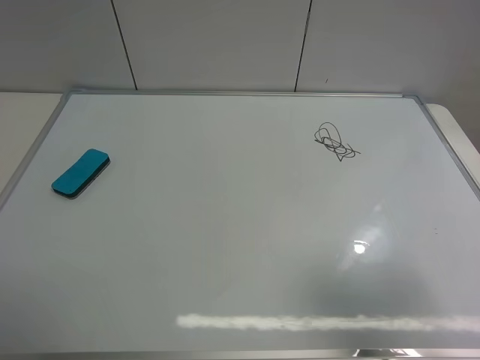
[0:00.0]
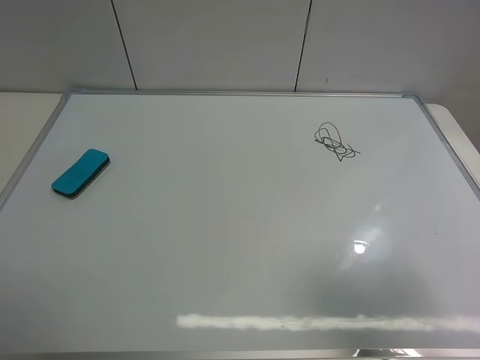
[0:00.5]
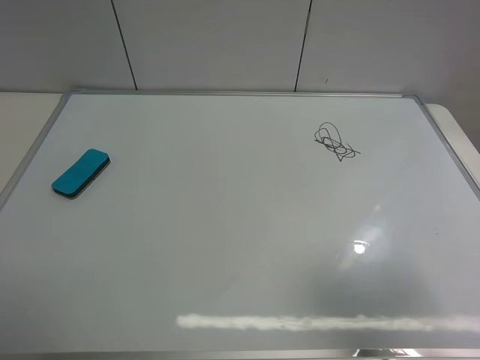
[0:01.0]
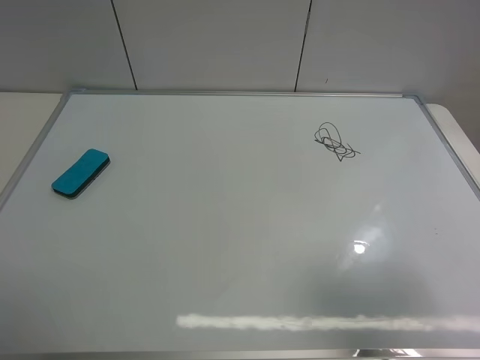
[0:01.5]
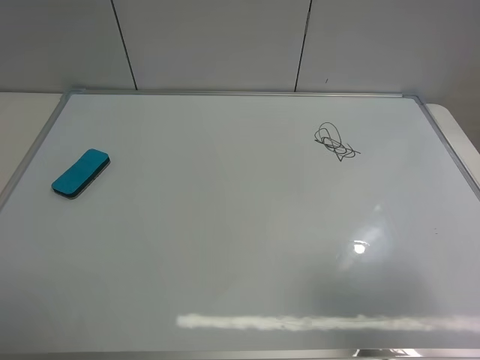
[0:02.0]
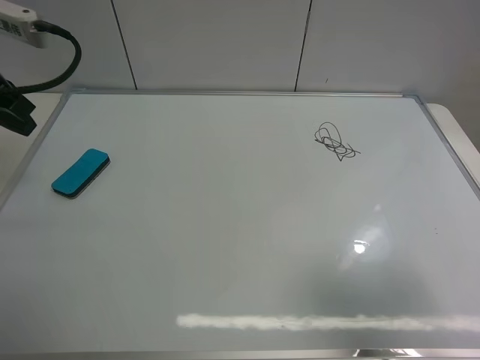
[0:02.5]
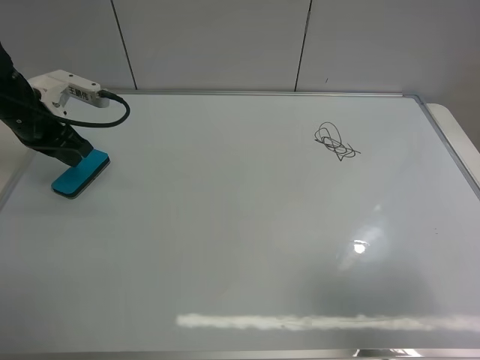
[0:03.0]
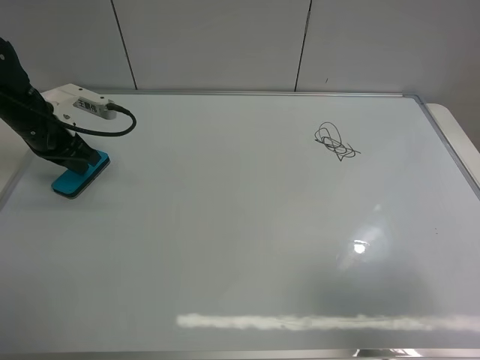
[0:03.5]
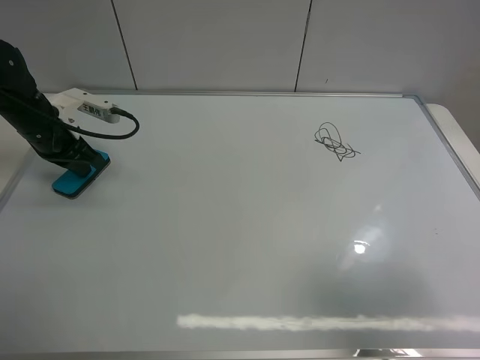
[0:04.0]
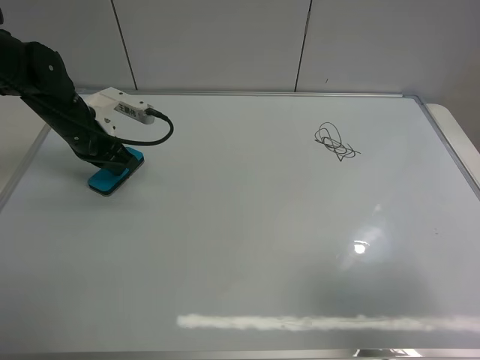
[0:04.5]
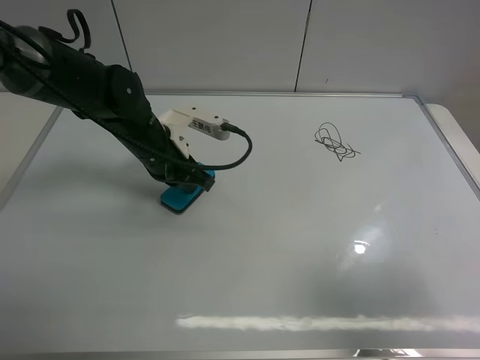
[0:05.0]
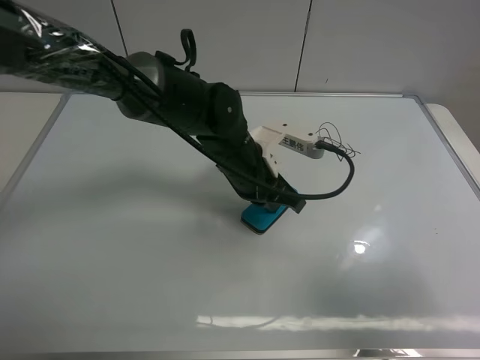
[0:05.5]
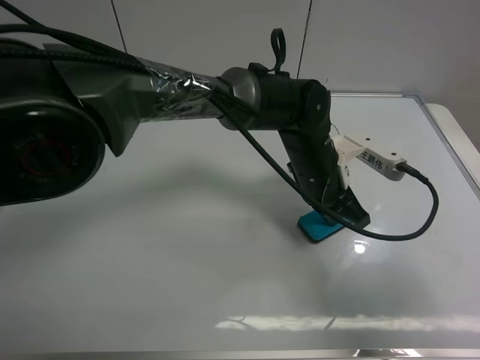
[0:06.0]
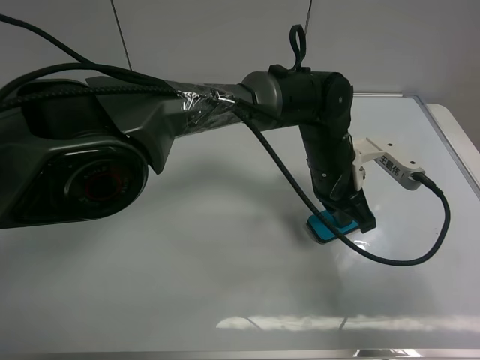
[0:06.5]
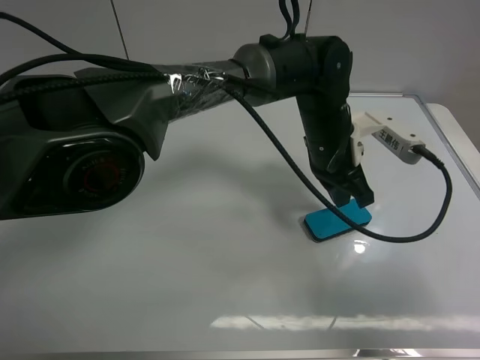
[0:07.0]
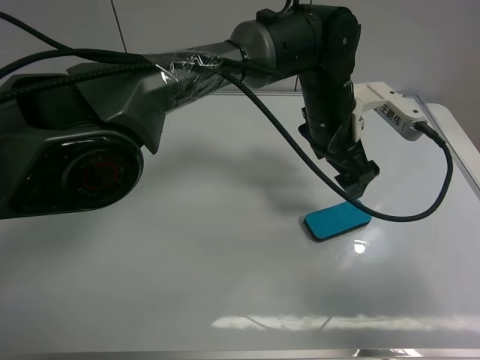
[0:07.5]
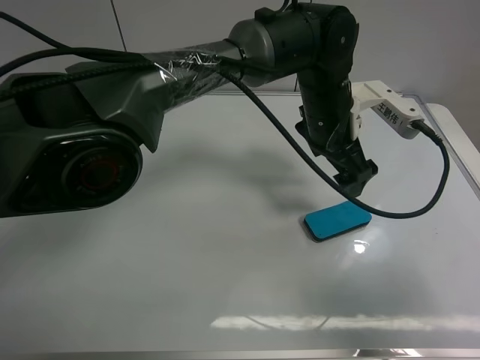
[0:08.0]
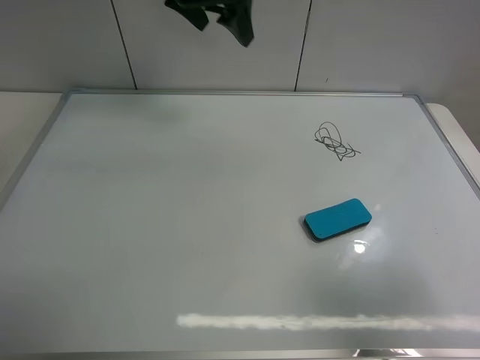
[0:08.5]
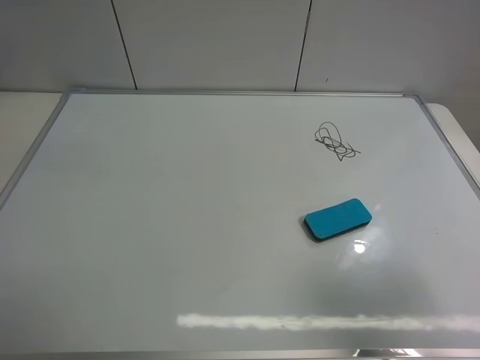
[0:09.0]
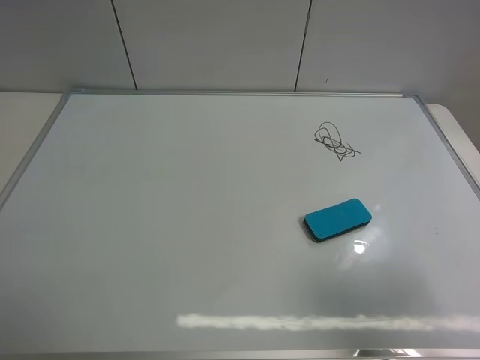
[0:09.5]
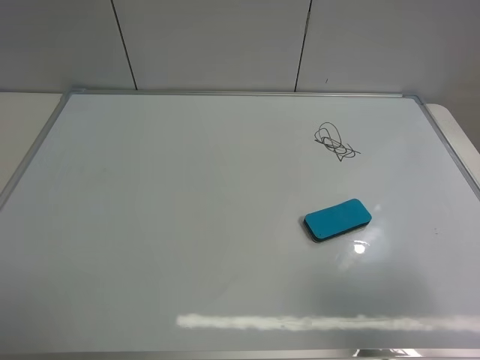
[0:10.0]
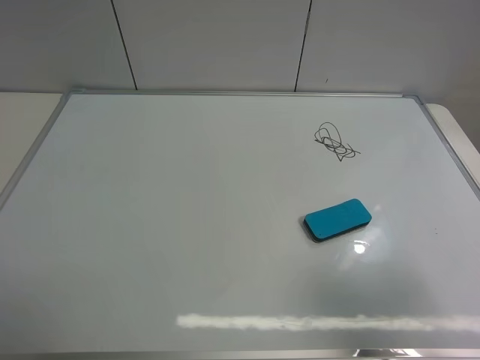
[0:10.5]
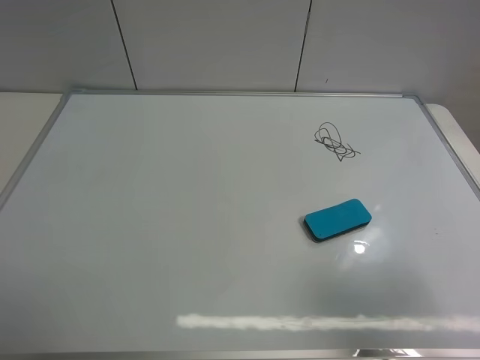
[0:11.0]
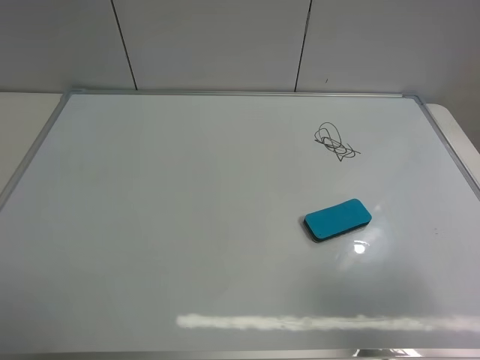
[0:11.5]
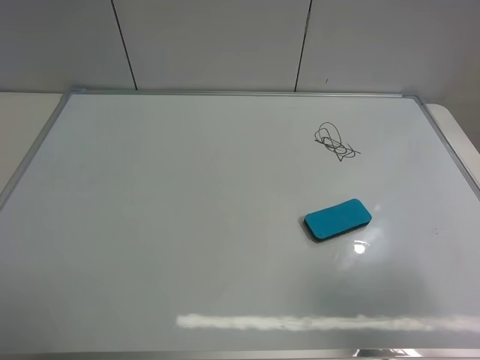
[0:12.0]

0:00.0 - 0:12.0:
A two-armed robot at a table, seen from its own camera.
Task of the whole recording: use the left gripper to place the eraser in the right, use the right gripper to pick up the eraser, wipe the notes on the whiteboard clean, and then put it down.
Step, 0:00.0 - 0:07.0: Move the board eraser to the right of the whiteboard with left gripper.
0:02.0 - 0:04.0: The left gripper shifts about 35 cm forward and downward, and closes its fingers.
0:04.0 - 0:06.0: The left gripper is displaced to the right by about 40 cm.
0:06.0 - 0:08.0: The left gripper shifts approximately 5 cm upward, and opens up.
0:08.0 - 0:10.0: The left gripper goes approximately 60 cm to the left, backward and upward.

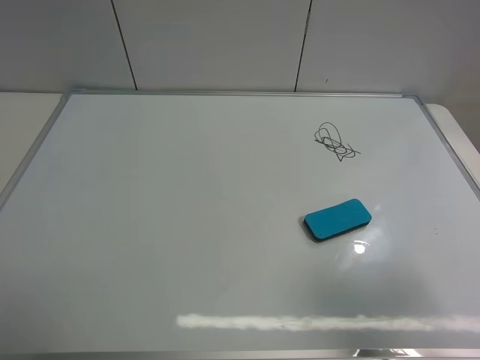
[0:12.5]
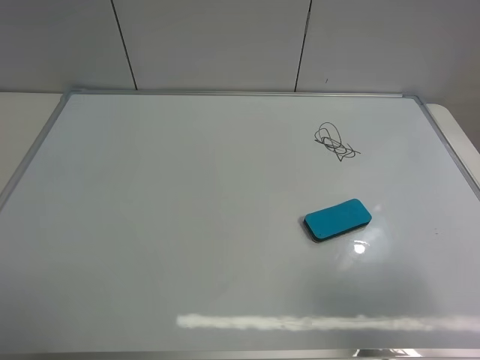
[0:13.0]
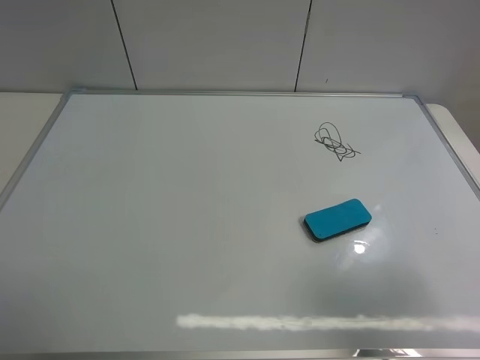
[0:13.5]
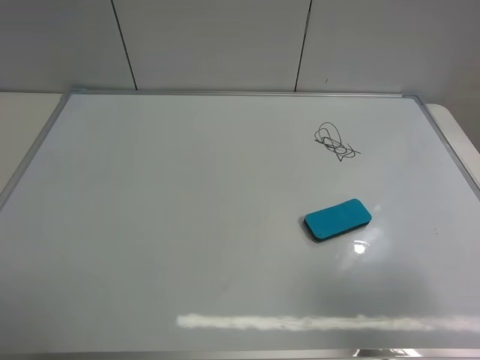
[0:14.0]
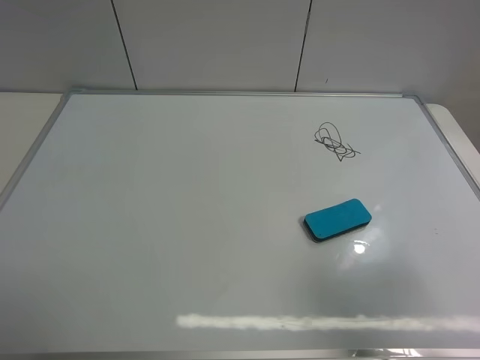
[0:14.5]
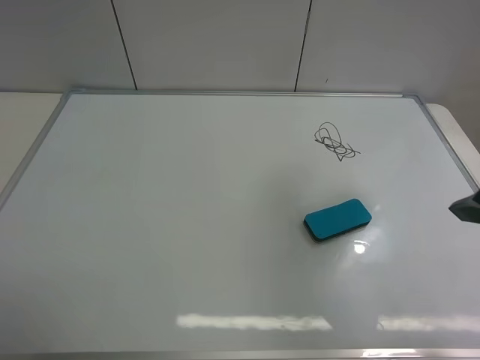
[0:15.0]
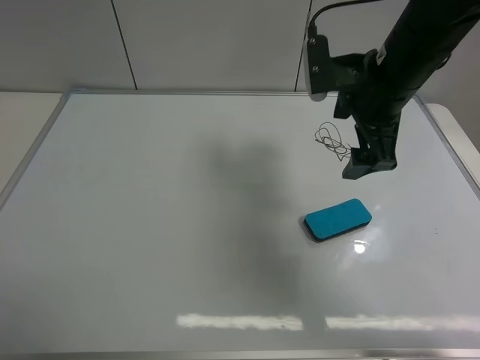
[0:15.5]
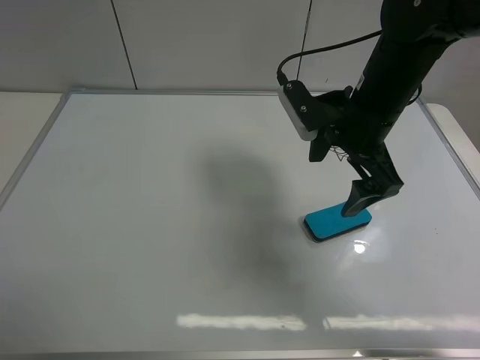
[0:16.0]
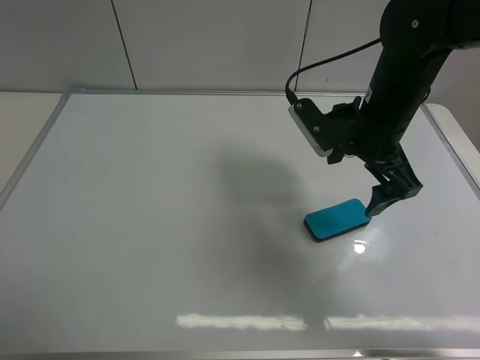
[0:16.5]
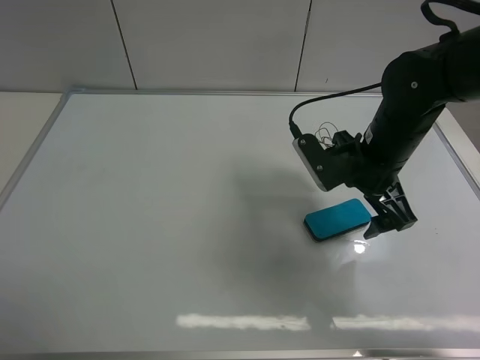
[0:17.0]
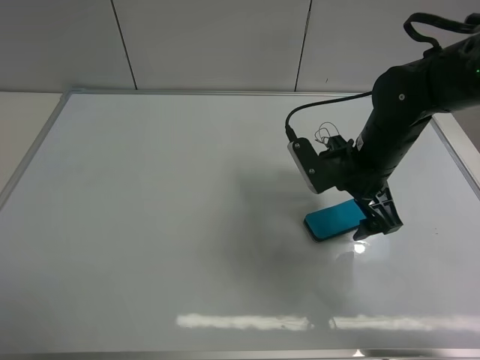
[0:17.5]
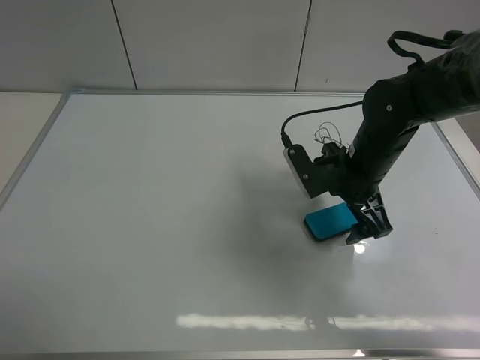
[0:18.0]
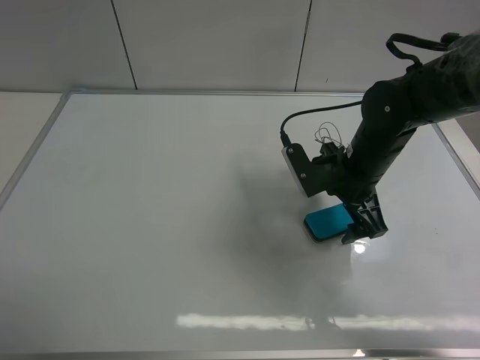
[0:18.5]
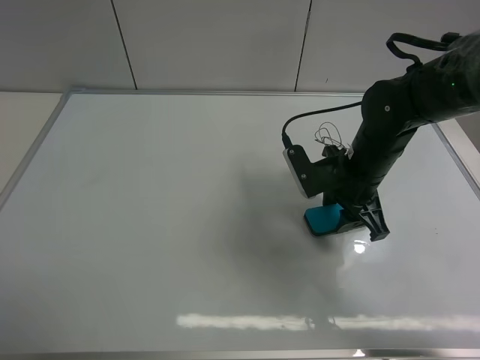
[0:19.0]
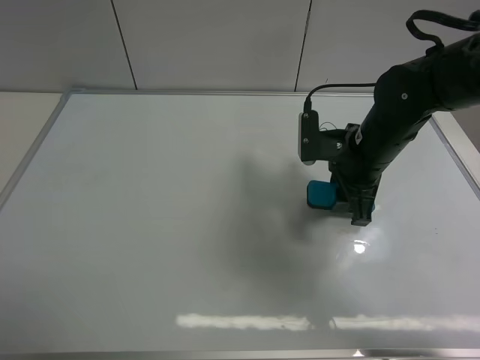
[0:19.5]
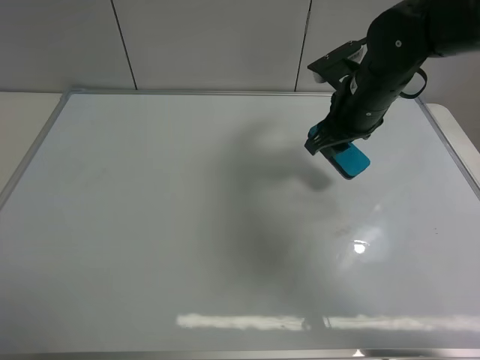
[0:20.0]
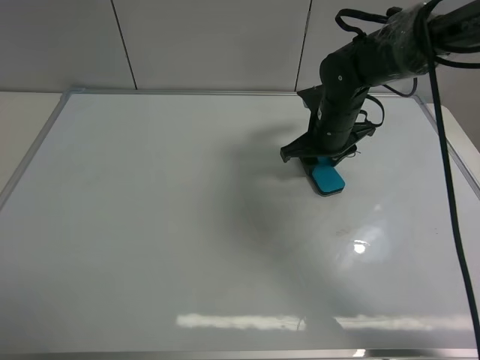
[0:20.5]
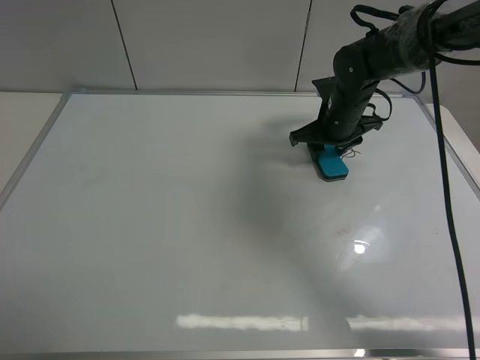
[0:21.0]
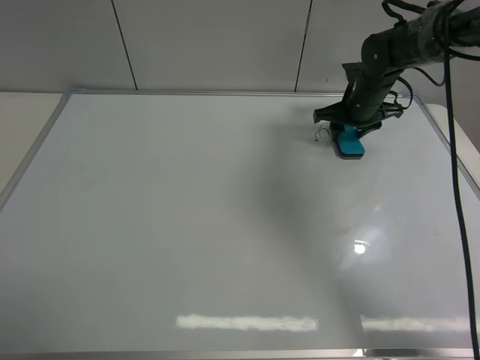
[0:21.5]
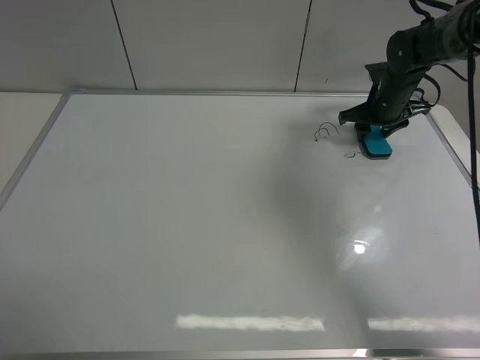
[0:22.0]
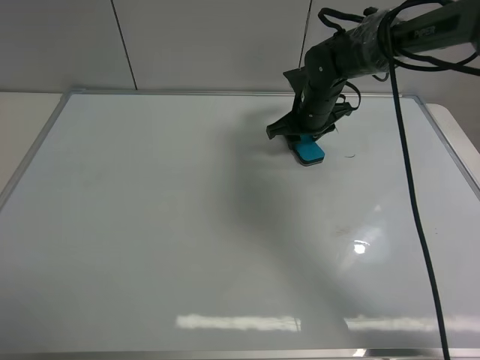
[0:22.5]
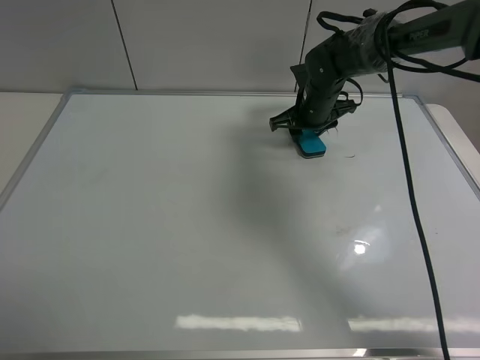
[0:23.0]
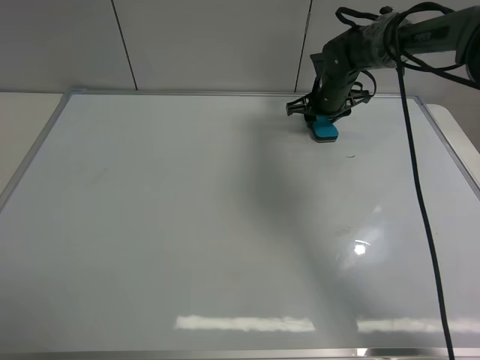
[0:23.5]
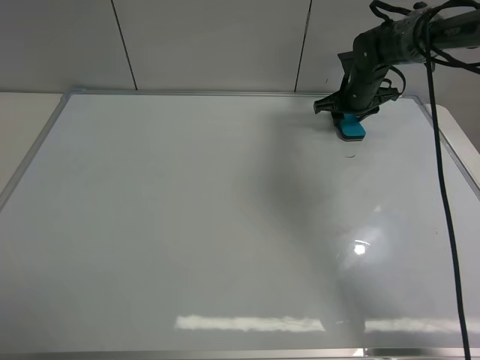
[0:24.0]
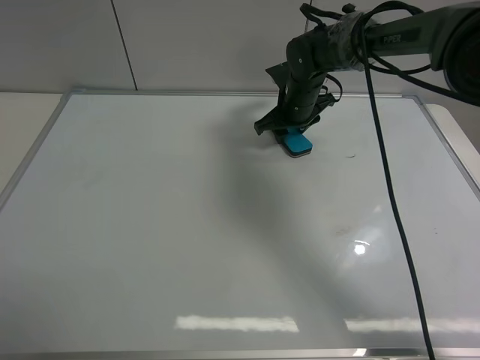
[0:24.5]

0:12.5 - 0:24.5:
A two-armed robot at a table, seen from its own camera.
Task of the whole recording: use the left gripper to place the eraser in the right, use the right gripper to pick up the eraser, wipe the notes on the whiteboard clean, and then put it down.
Step, 0:12.5 - 0:19.5: Pick up the board eraser with right gripper.
0:14.5 - 0:16.5: The right gripper goes about 30 cm forward and to the left.
0:16.5 - 0:18.5: The right gripper travels downward by roughly 10 cm.
0:18.5 - 0:20.5: The right gripper travels forward by roughly 10 cm, and closes its fingers.
0:20.5 - 0:22.5: The right gripper goes approximately 5 cm forward, and reaches roughly 10 cm to the right, then returns.
0:22.5 - 0:24.5: The right gripper travels to the right and back again, some 10 cm each way.

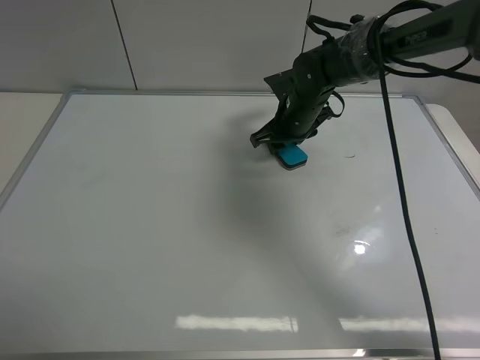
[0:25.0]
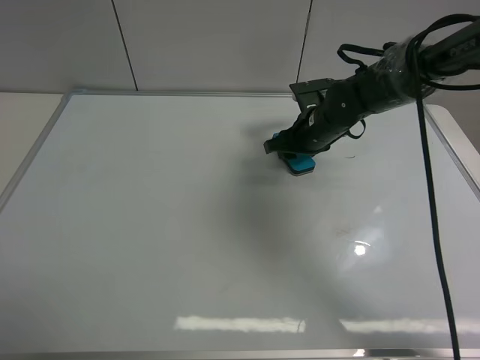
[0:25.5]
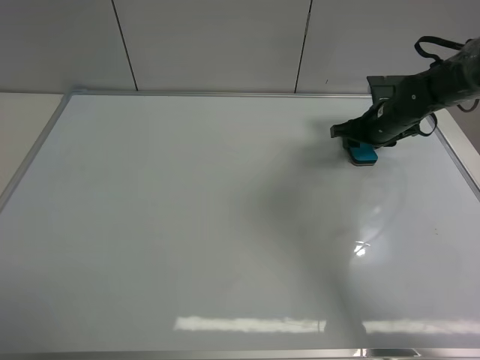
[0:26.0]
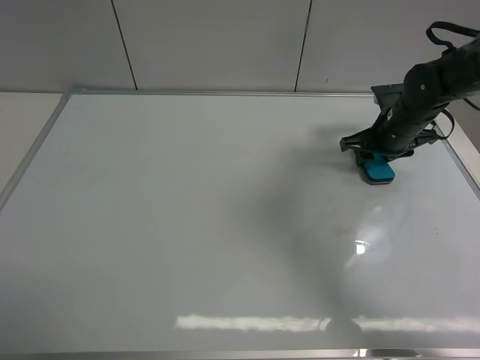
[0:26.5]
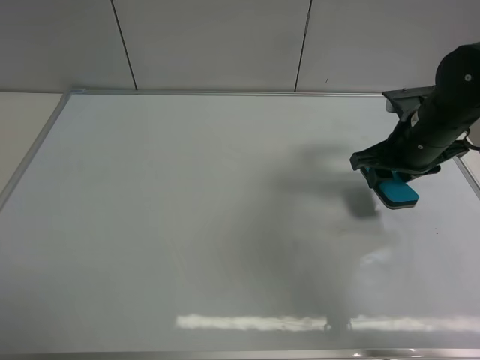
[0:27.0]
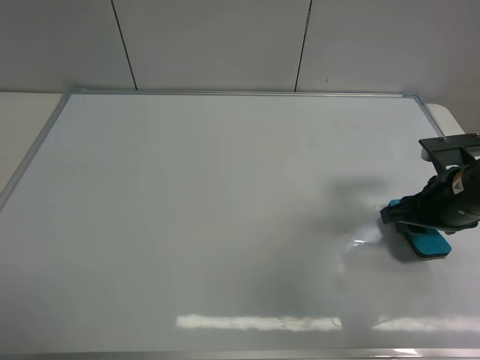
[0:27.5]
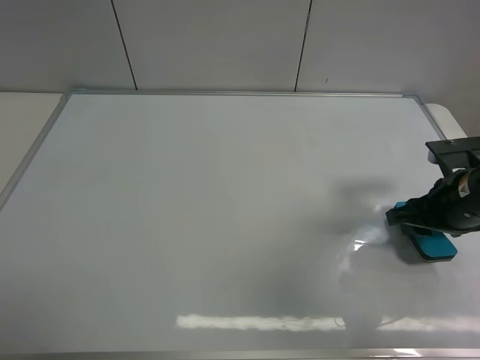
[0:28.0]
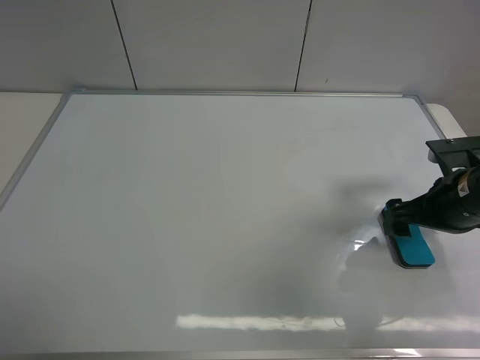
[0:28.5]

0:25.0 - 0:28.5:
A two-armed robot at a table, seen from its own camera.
Task of the whole recording: use the left gripper to place the eraser in the right, use the right gripper to pick up the eraser, wipe the notes on the whiteboard clean, and then put it down.
0:25.0 - 0:27.0: The right gripper heads to the right, backward and upward, covering some 20 cm.
0:27.0 - 0:28.5: The right gripper travels backward by some 5 cm, and opens up.
